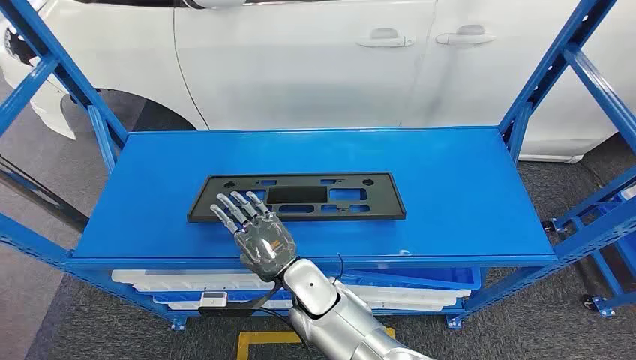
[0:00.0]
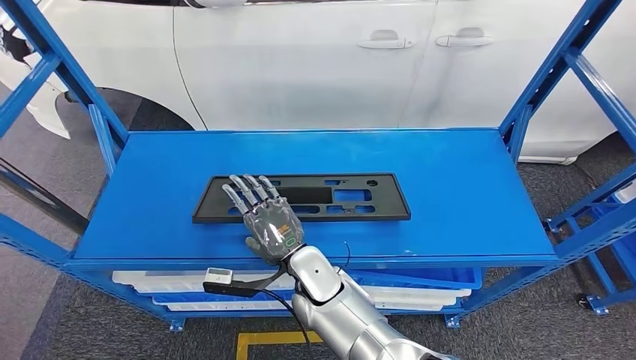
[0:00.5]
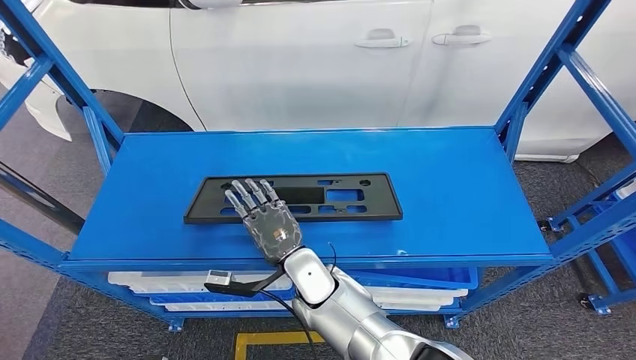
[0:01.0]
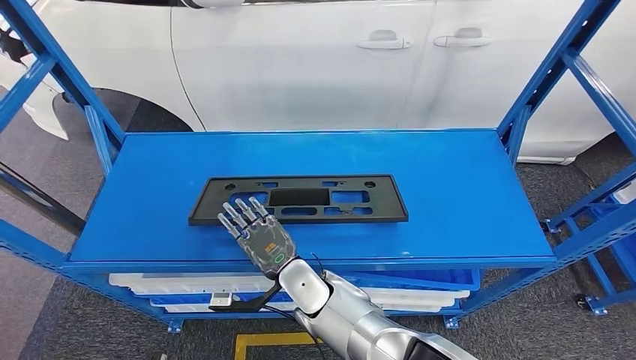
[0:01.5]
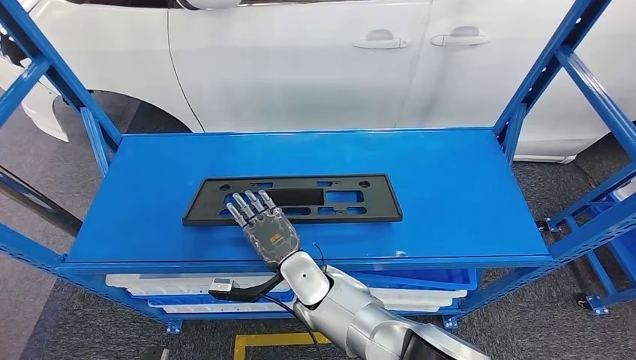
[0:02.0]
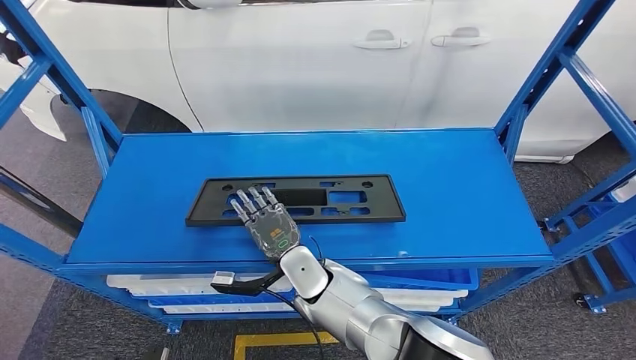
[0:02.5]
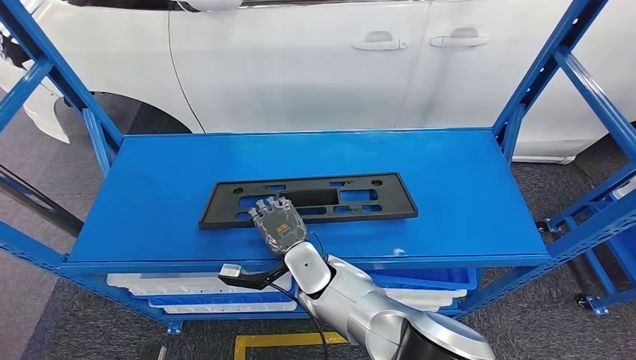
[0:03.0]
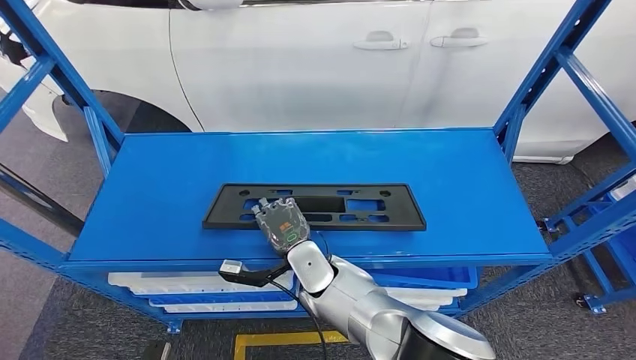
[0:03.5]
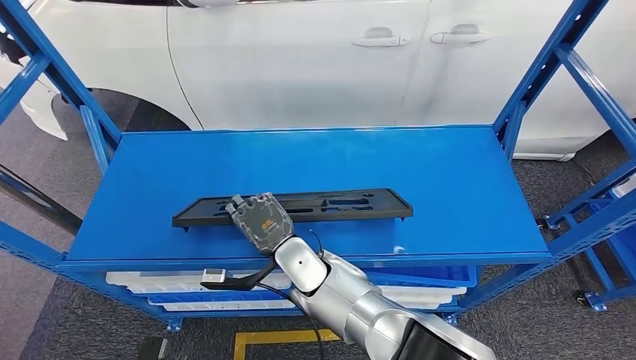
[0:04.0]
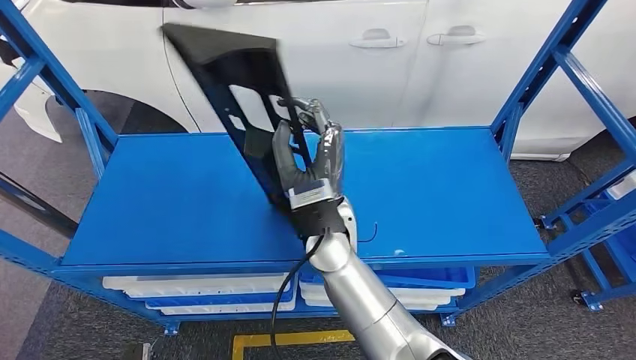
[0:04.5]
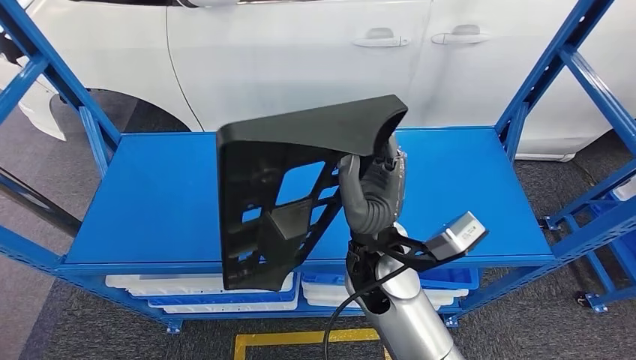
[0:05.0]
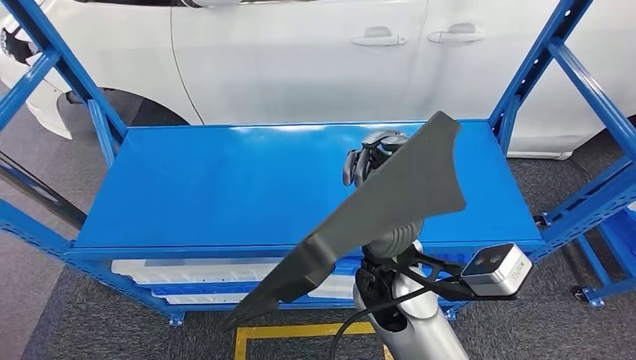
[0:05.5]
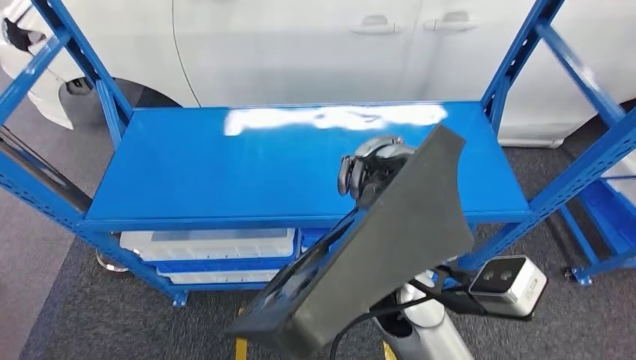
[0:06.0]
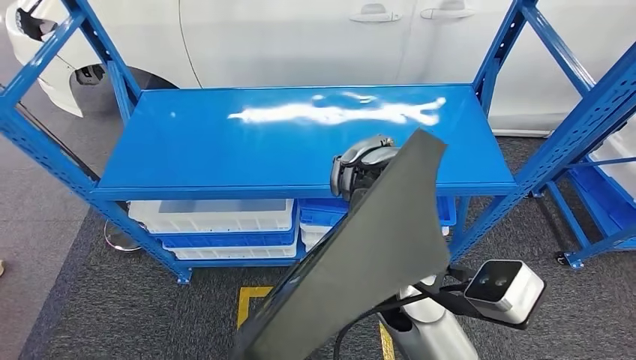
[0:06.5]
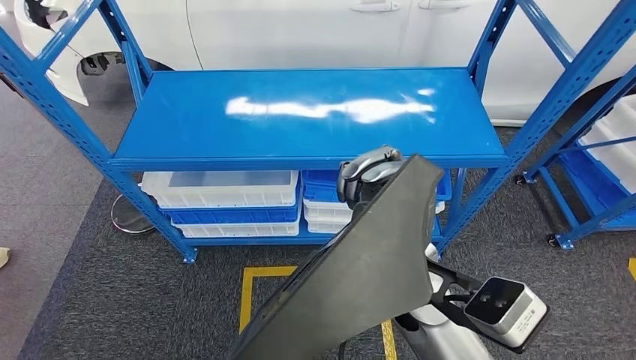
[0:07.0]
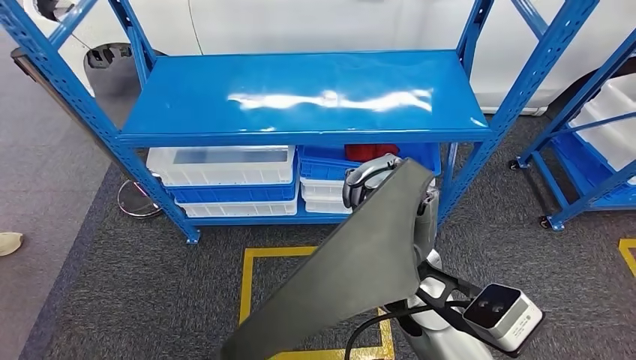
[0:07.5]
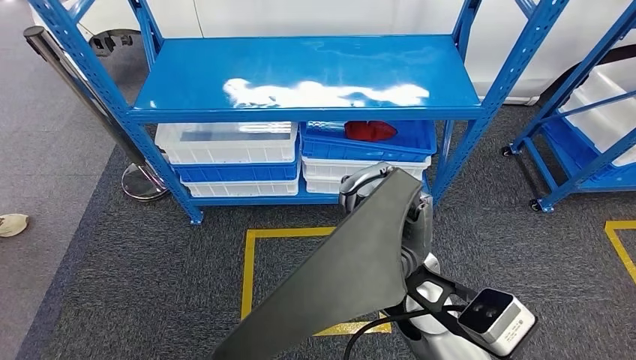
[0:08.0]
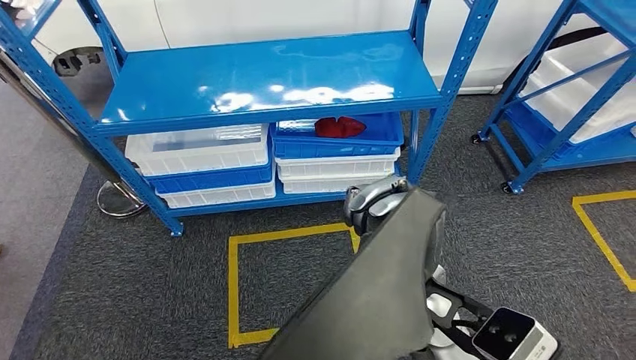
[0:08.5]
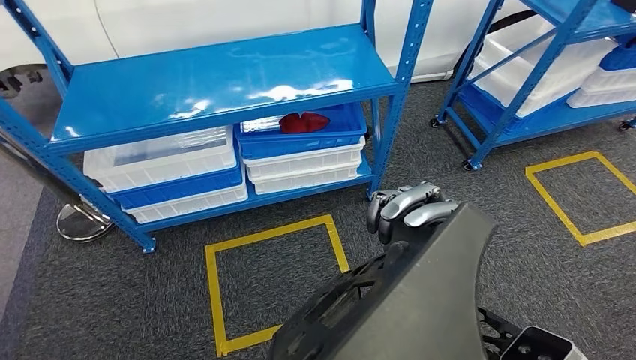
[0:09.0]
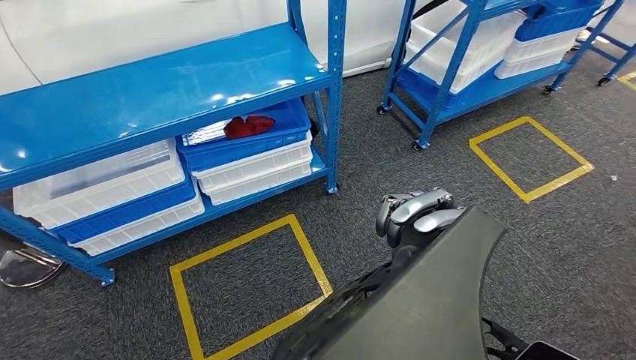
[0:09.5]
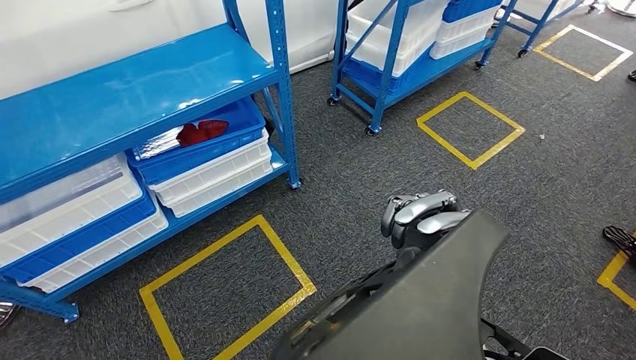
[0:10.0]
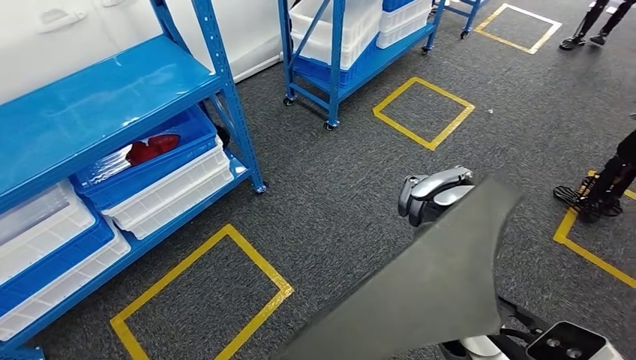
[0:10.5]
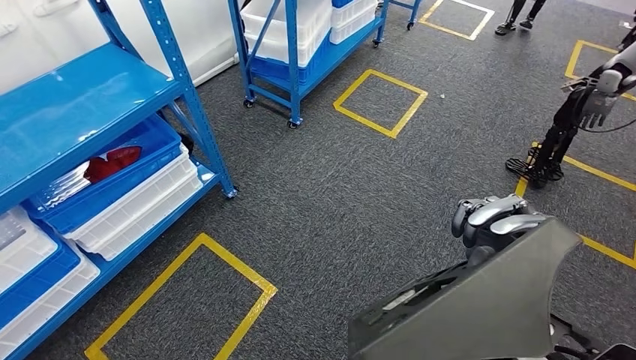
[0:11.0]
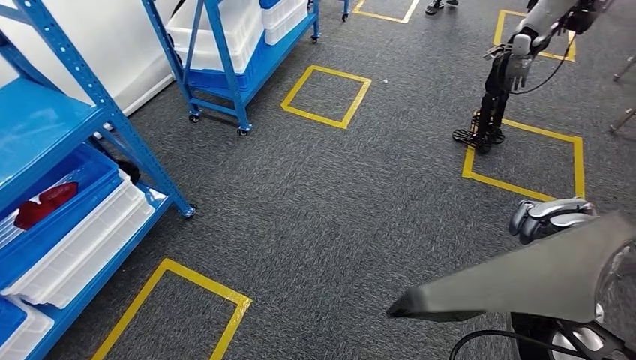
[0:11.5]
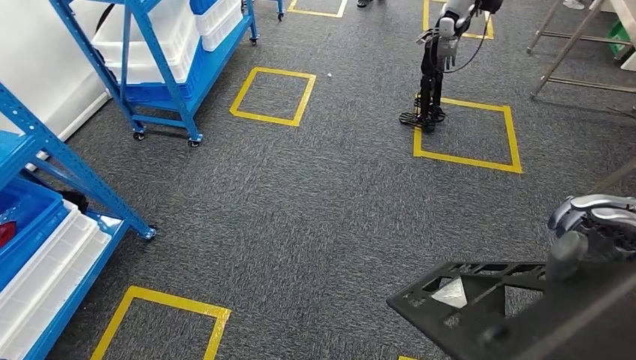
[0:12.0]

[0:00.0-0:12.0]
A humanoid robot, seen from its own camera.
Step, 0:00.0 to 0:05.5: Pick up the small parts from the shelf.
0:02.0 to 0:04.0: The hands move only a little.

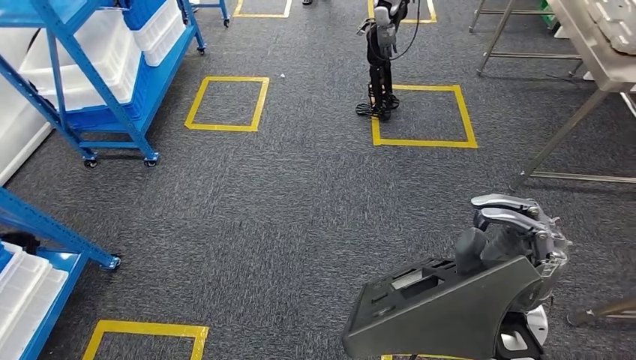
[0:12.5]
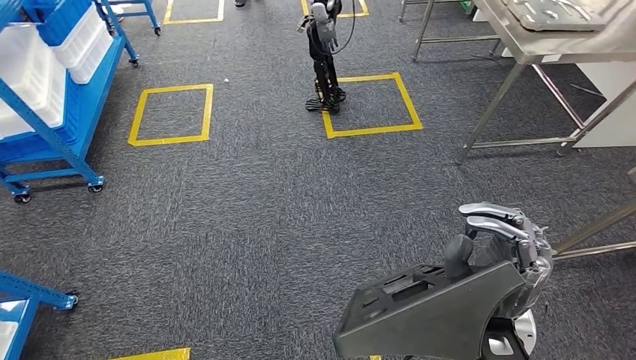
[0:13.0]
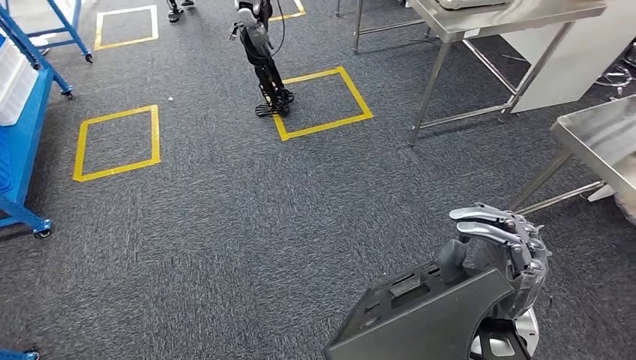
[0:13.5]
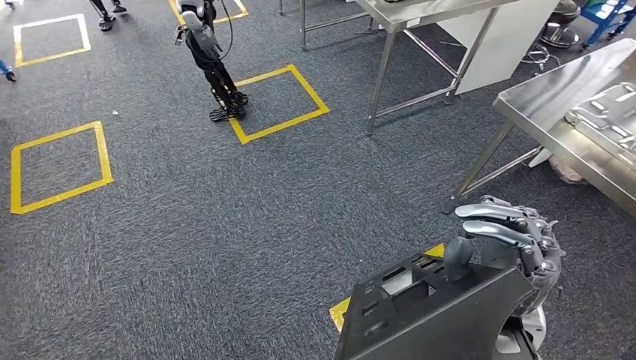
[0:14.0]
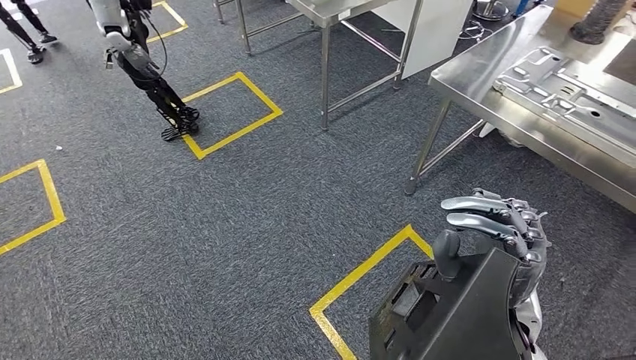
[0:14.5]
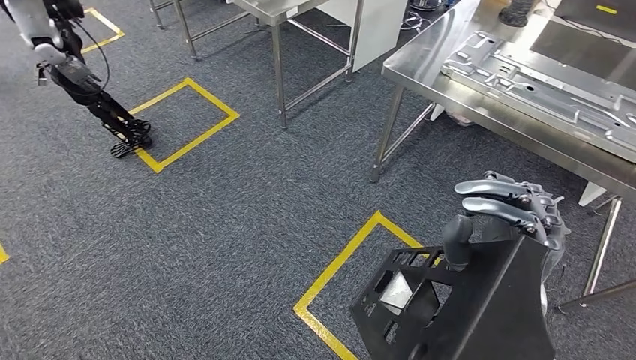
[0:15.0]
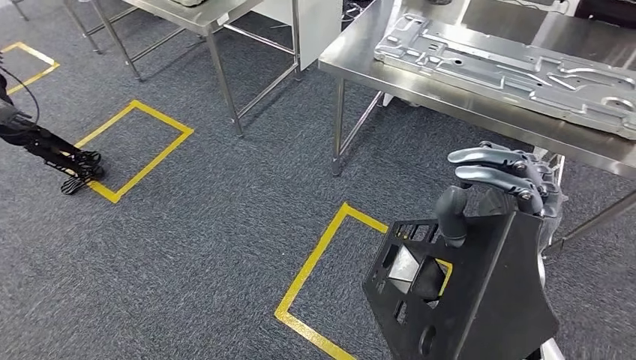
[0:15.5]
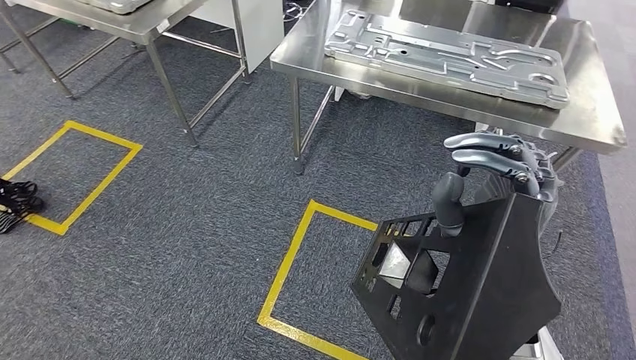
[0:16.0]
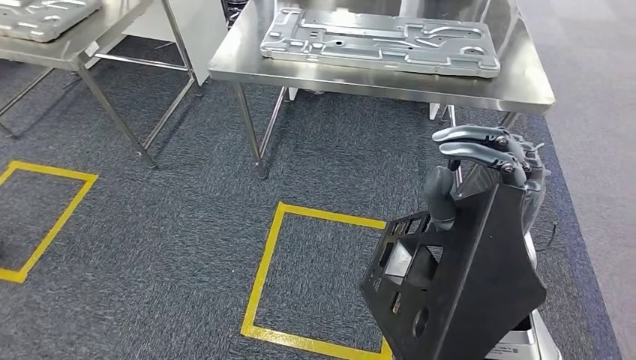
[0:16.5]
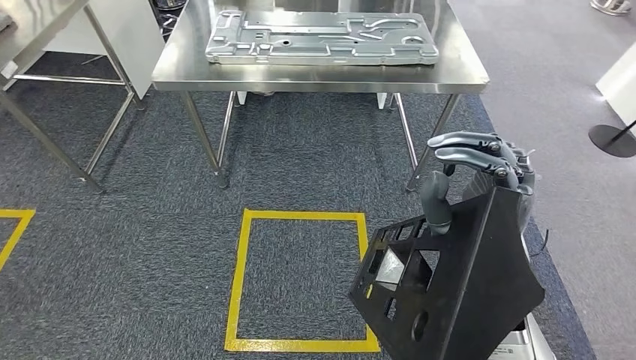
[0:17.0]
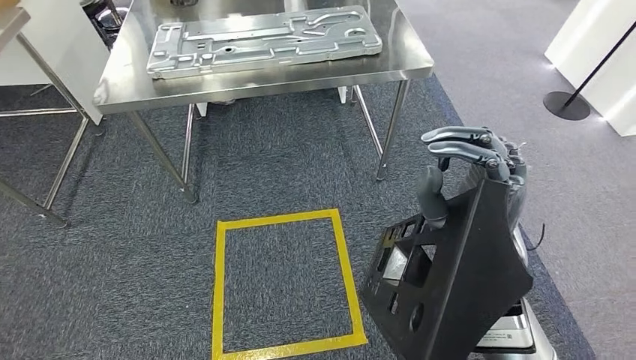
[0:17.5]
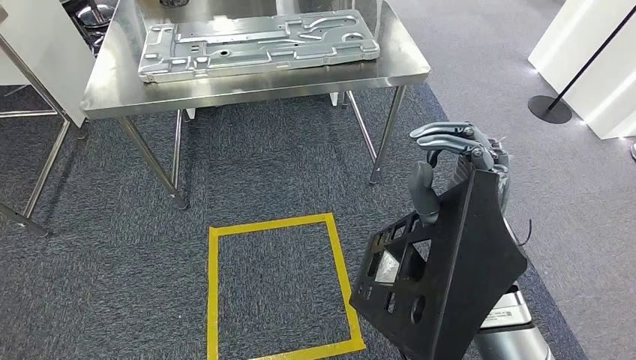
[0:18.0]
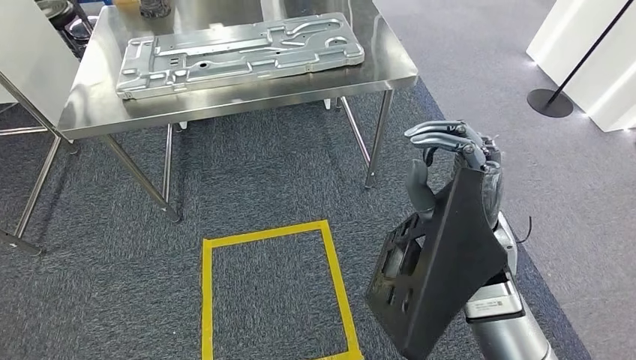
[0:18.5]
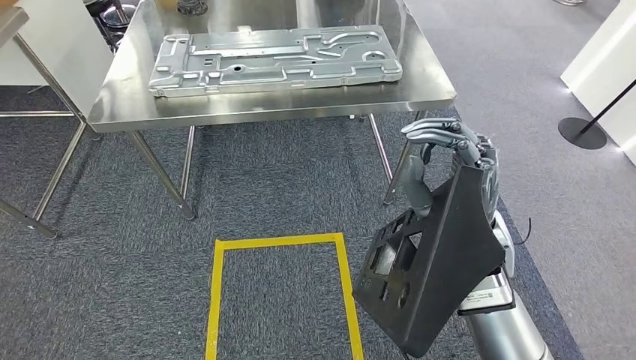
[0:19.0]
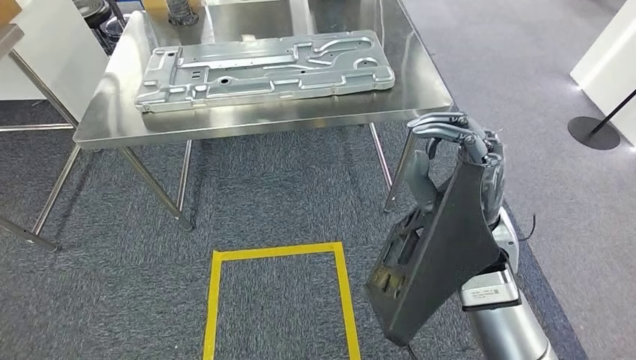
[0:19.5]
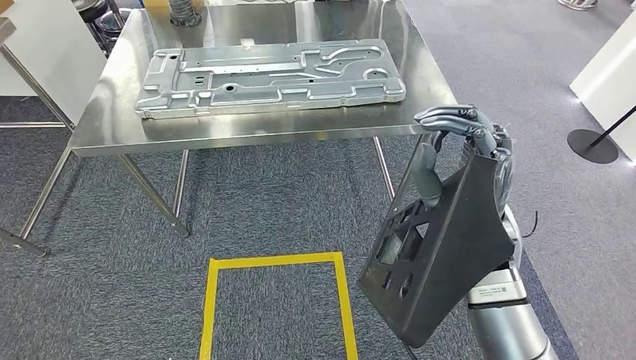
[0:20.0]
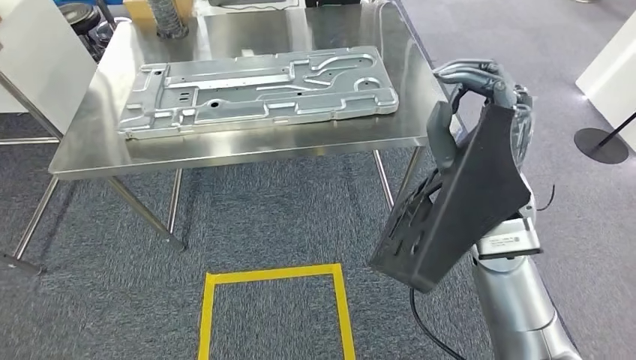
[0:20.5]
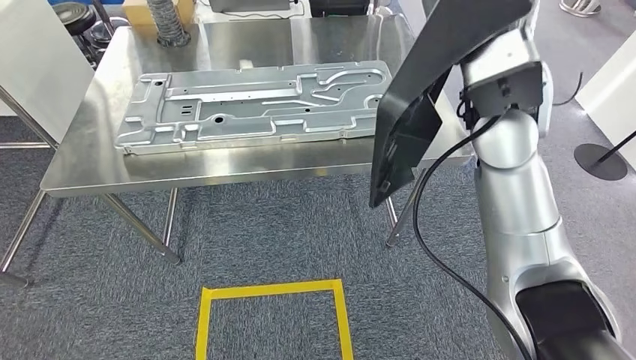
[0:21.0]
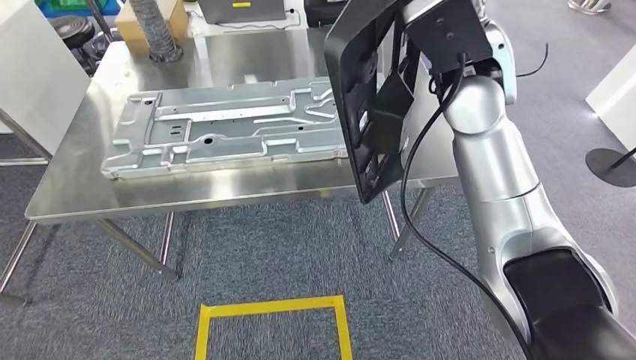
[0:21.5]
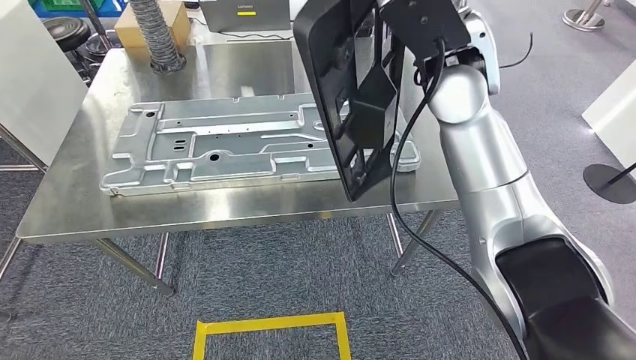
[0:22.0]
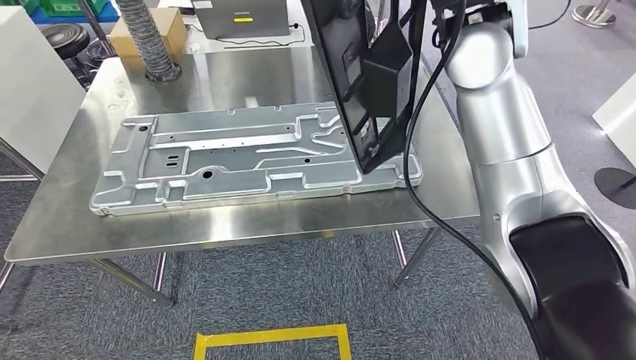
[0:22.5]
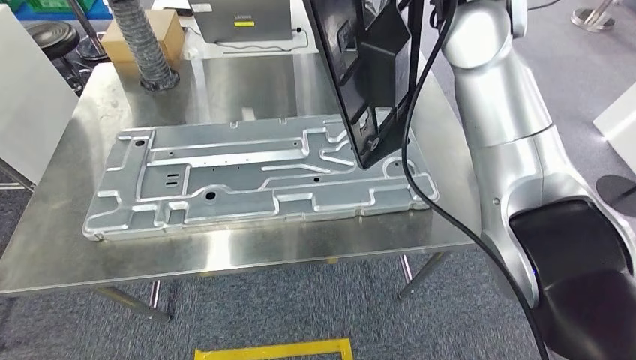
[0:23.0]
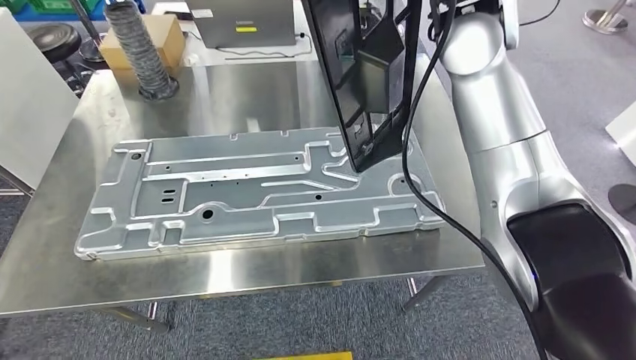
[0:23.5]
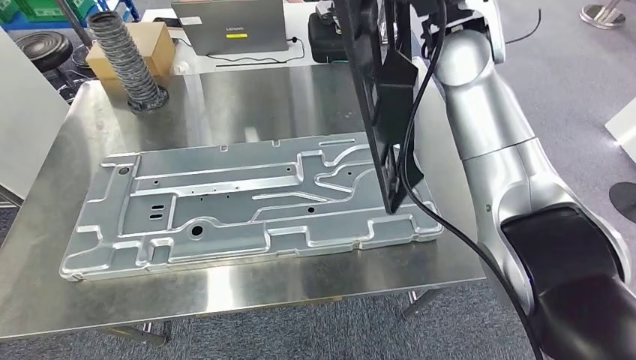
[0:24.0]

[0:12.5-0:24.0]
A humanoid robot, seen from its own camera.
Step, 0:12.5 to 0:22.5: Move the small parts to the workbench.
